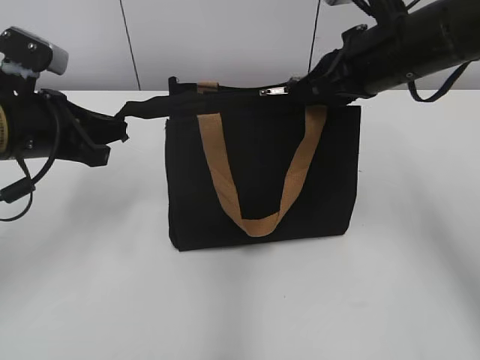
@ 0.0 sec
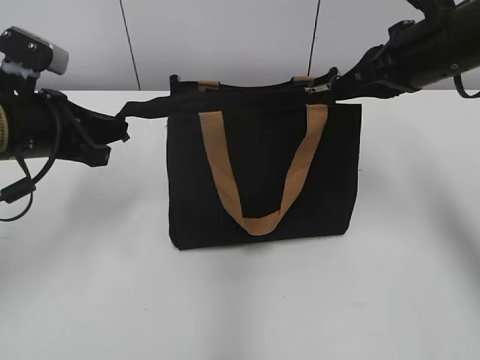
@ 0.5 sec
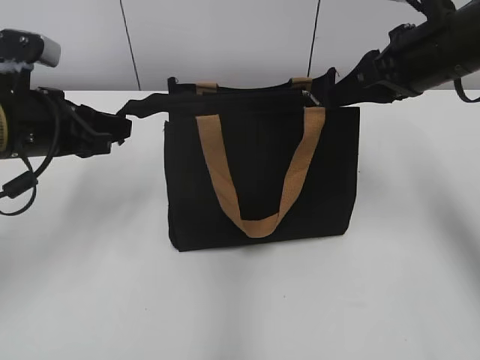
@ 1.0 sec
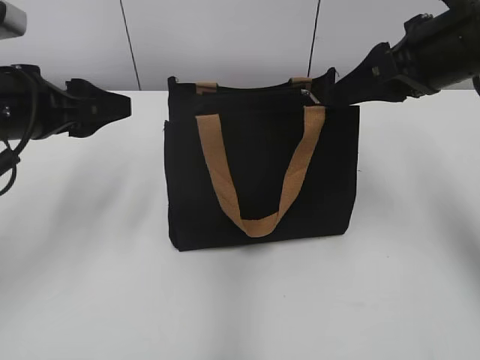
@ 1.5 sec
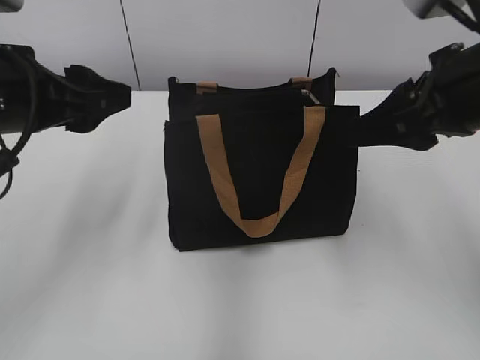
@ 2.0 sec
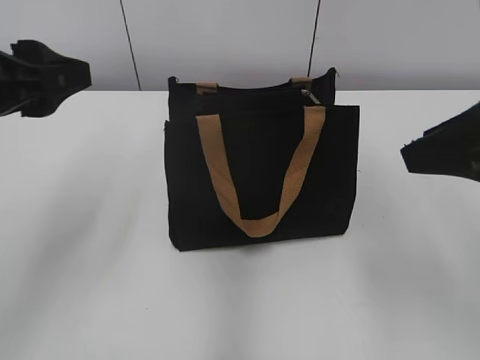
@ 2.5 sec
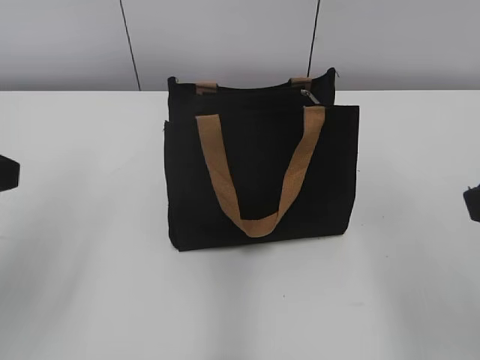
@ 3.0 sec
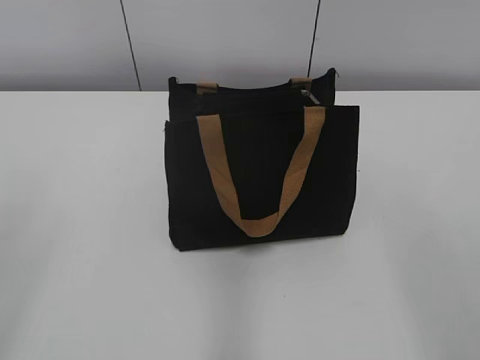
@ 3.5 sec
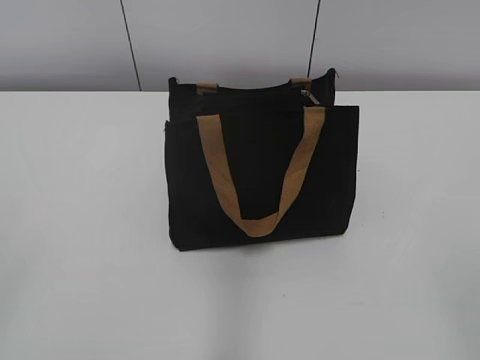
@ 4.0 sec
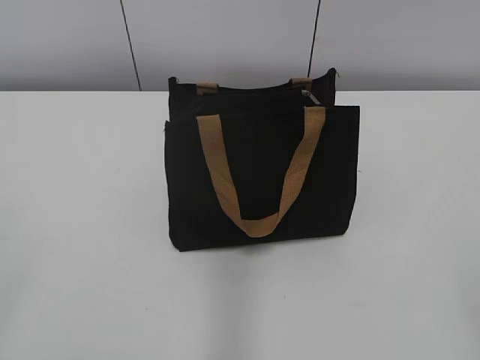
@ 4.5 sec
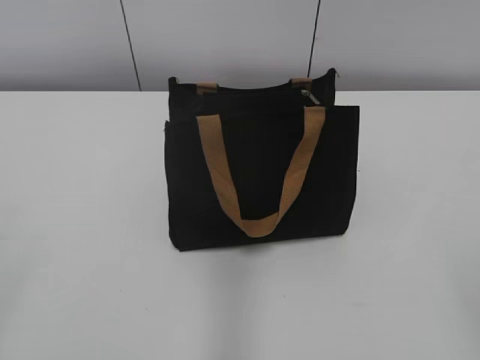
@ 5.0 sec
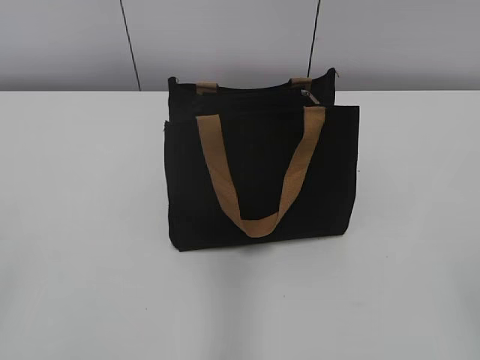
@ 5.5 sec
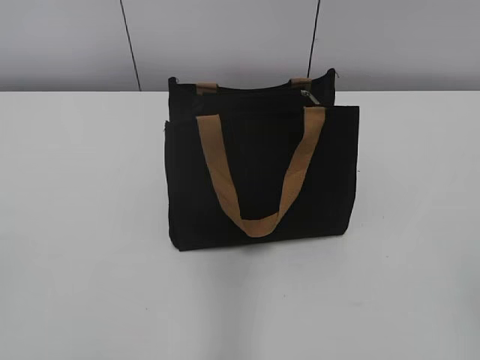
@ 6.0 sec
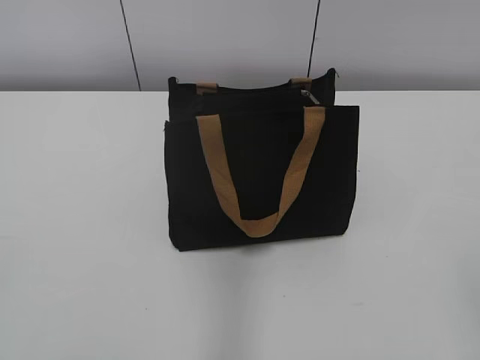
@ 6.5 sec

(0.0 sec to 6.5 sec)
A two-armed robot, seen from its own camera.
0.0 sec - 2.0 sec: The right gripper travels backward by roughly 10 cm, and opens; the left gripper goes some 5 cm upward, and opens up.
2.0 sec - 4.5 sec: The left gripper shifts approximately 25 cm backward and to the left; the right gripper shifts roughly 30 cm backward.

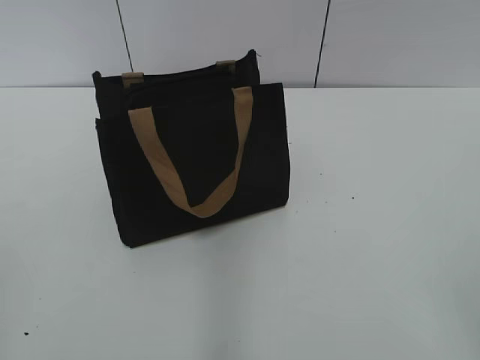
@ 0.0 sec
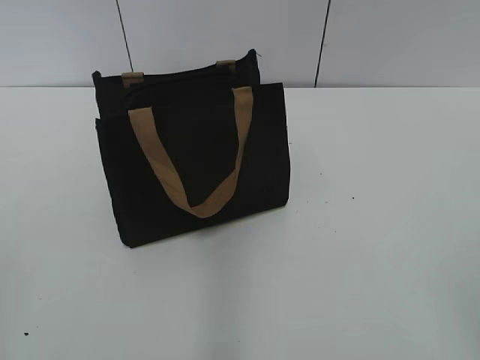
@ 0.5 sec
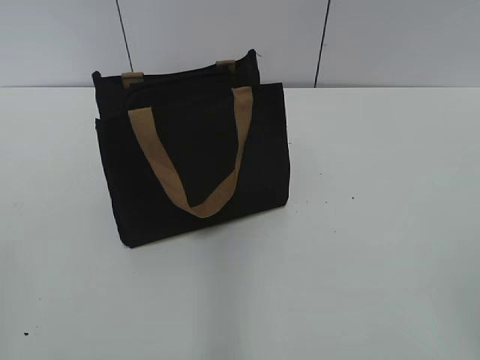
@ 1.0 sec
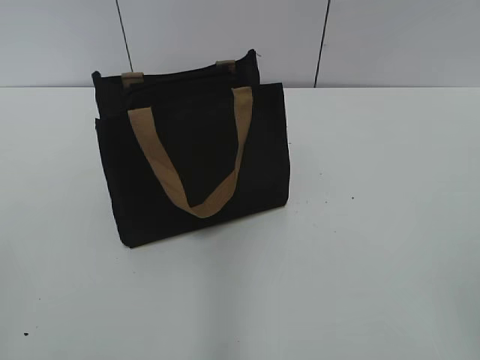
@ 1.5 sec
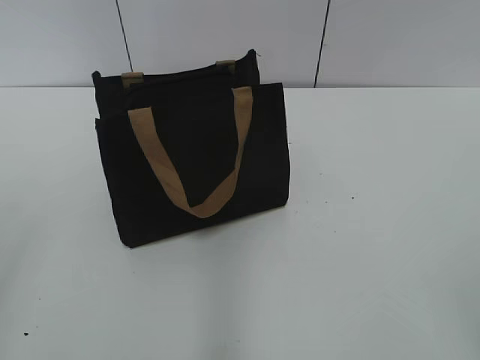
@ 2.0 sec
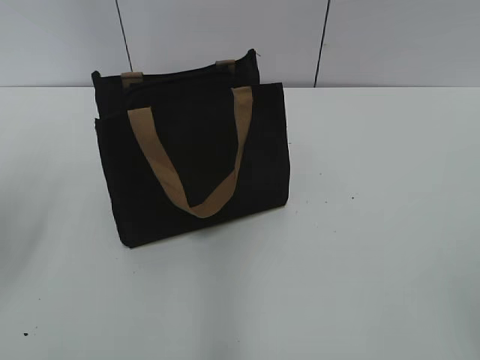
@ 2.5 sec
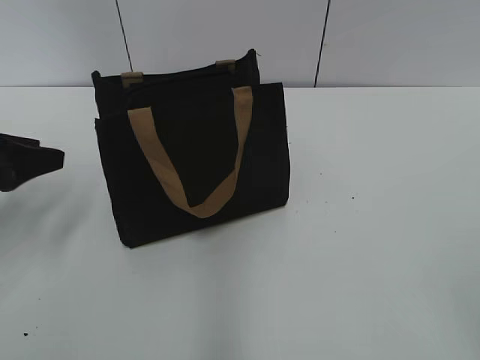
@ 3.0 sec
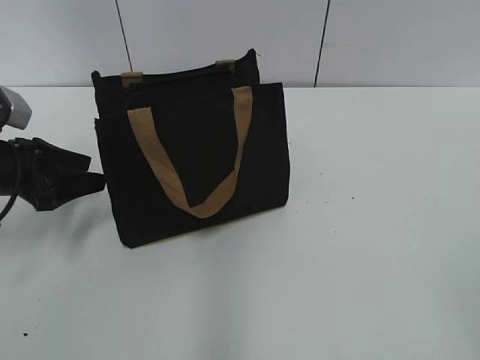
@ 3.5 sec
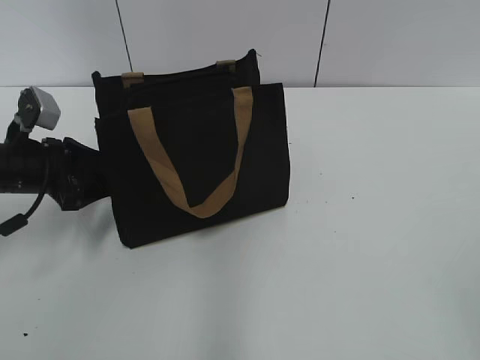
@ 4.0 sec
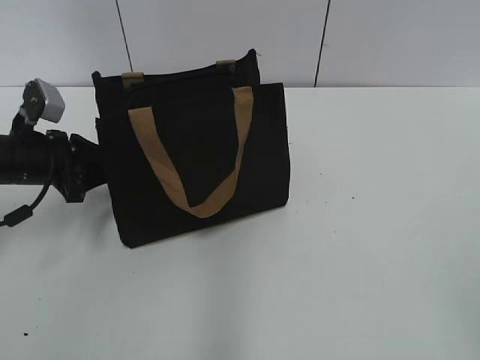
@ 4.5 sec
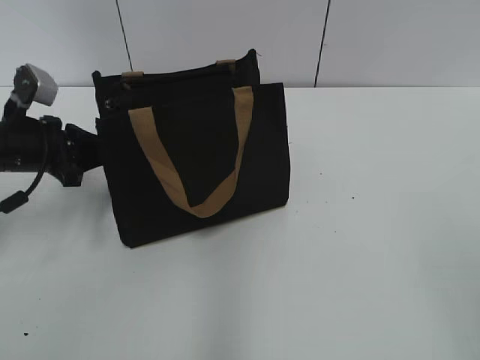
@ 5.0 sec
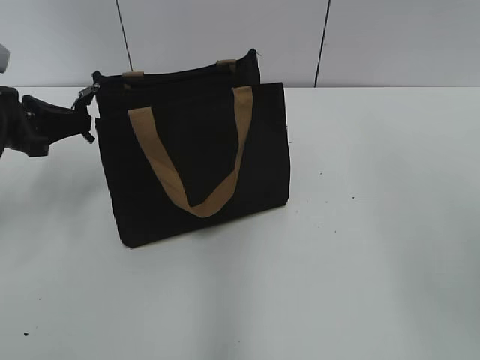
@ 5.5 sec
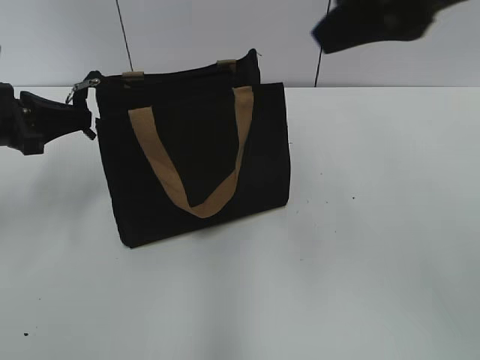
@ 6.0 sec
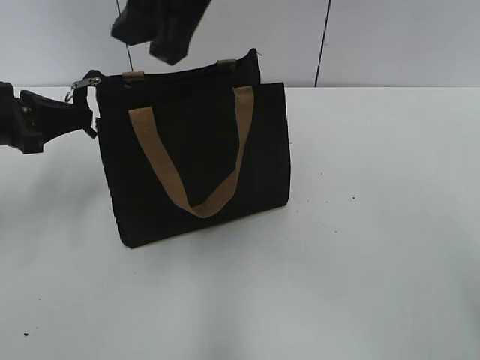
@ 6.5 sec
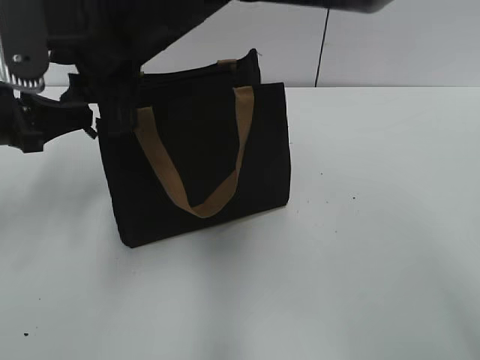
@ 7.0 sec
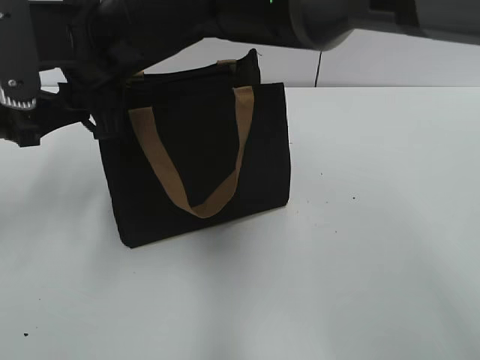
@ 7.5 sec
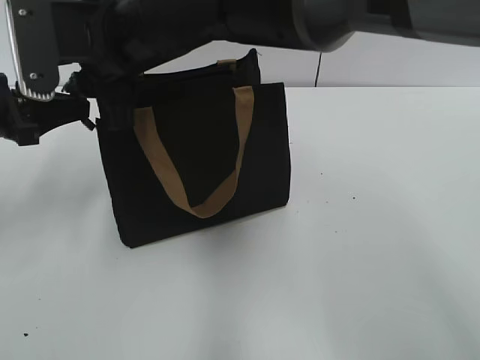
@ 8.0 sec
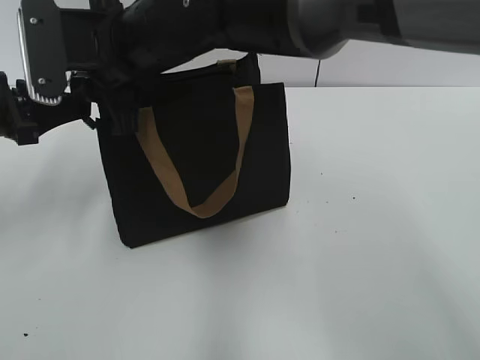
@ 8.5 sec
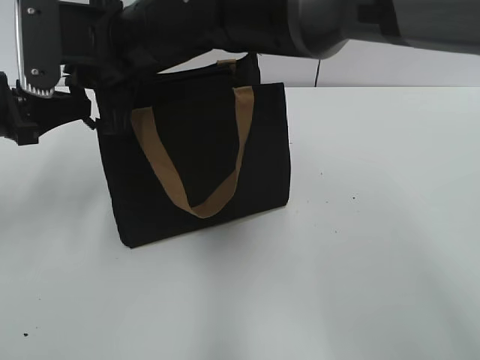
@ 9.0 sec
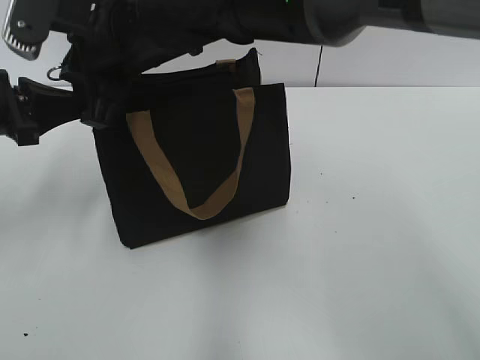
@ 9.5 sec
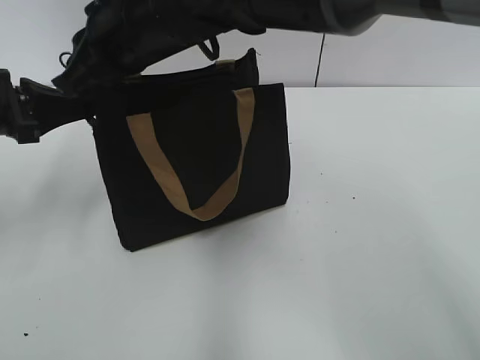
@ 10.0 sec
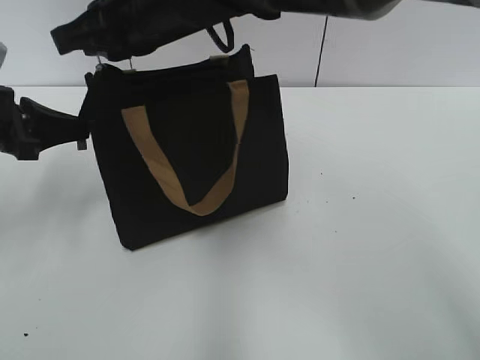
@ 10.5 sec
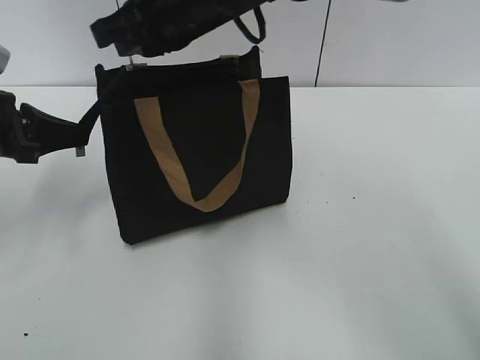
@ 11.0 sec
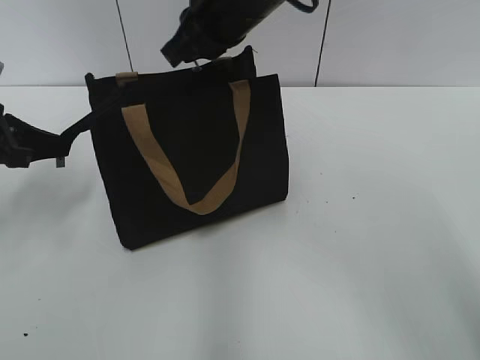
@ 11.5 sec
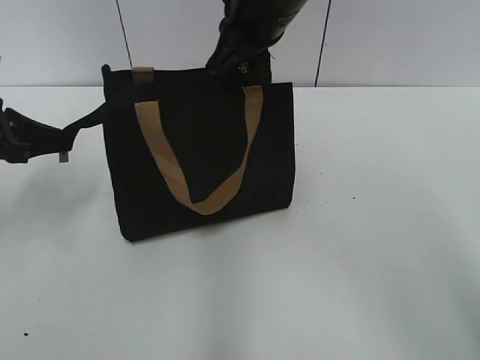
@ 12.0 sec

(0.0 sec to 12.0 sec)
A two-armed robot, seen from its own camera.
2.0 sec - 4.0 sec: The left gripper shifts some 30 cm forward and downward.
4.0 sec - 6.0 sec: The right gripper heads forward, to the left and upward, covering some 30 cm, while the left gripper is displaced upward by some 5 cm, and closes up.
6.0 sec - 8.0 sec: The right gripper travels to the left, downward and forward by some 25 cm.
8.0 sec - 10.0 sec: The right gripper closes up.
10.0 sec - 12.0 sec: The right gripper goes about 10 cm to the right.

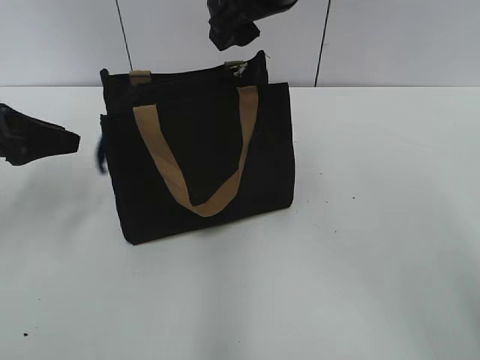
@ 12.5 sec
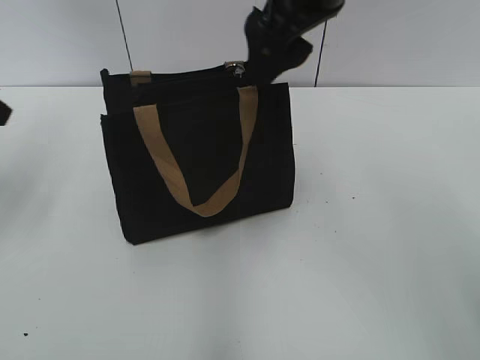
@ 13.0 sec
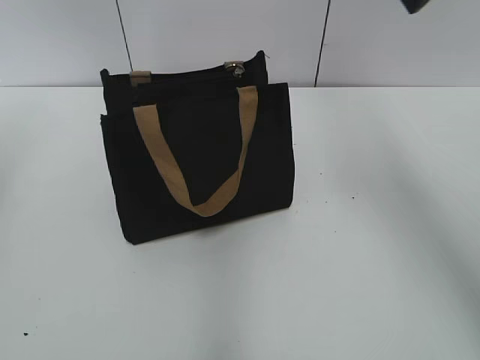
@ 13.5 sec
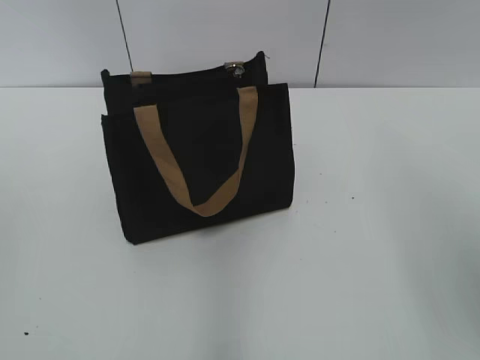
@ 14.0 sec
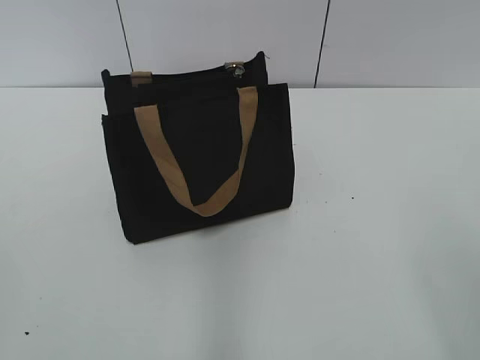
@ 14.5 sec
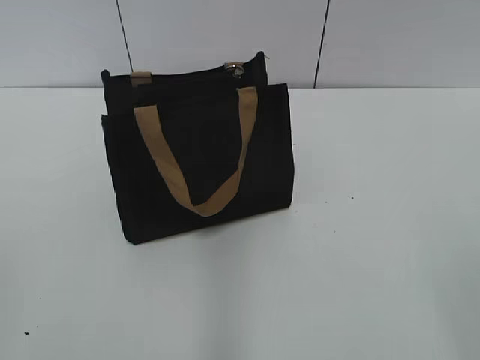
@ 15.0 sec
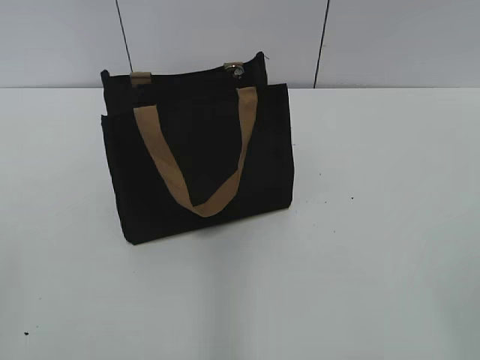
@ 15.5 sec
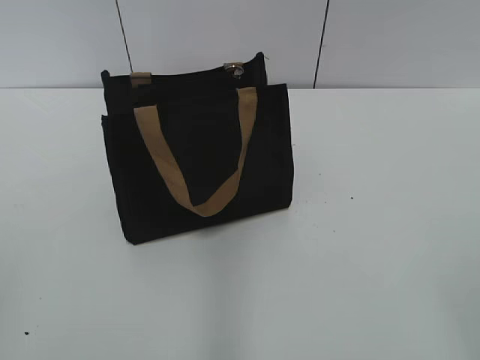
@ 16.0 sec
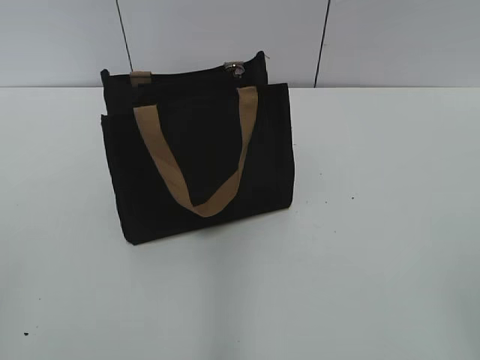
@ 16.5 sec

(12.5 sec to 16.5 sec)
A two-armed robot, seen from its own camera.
12.5 sec - 14.5 sec: The right gripper shifts some 40 cm backward and to the right, while the left gripper goes approximately 30 cm backward.
